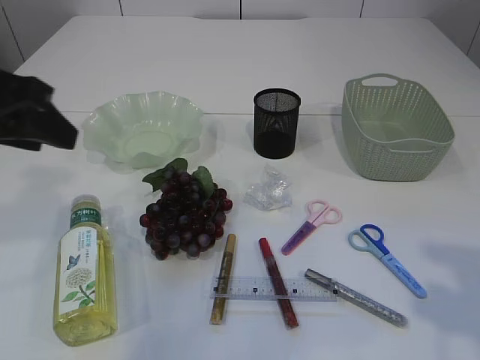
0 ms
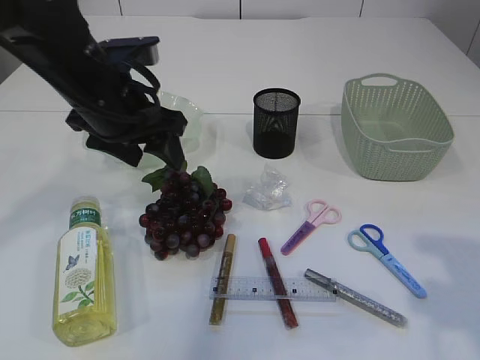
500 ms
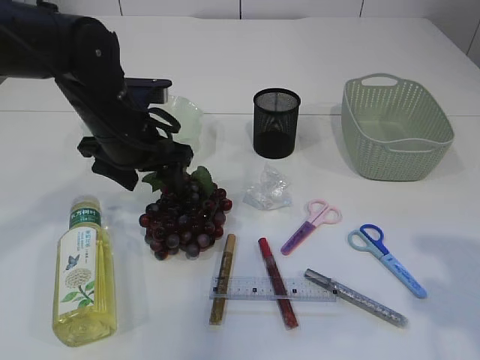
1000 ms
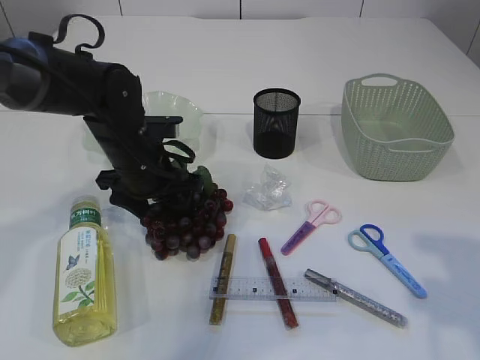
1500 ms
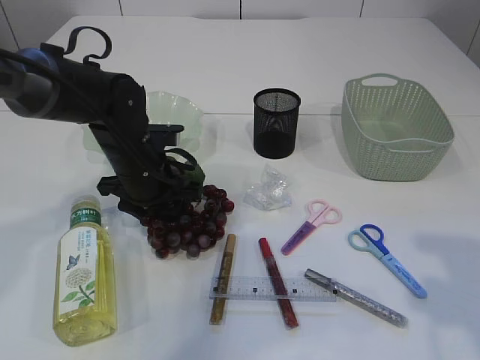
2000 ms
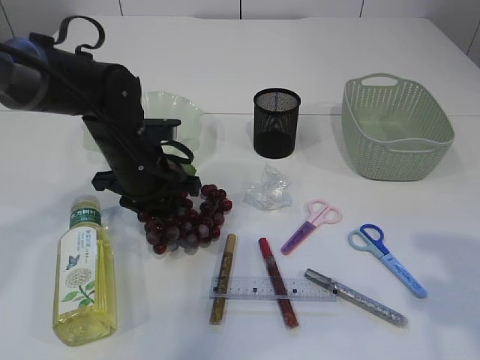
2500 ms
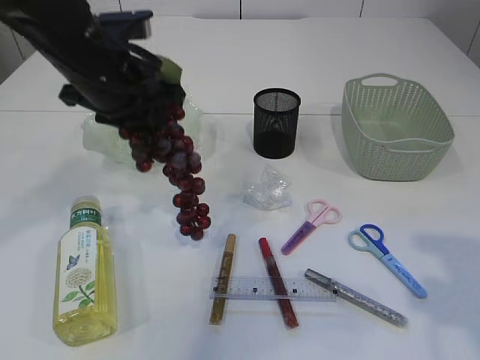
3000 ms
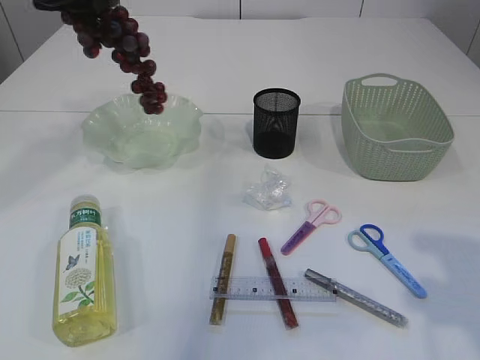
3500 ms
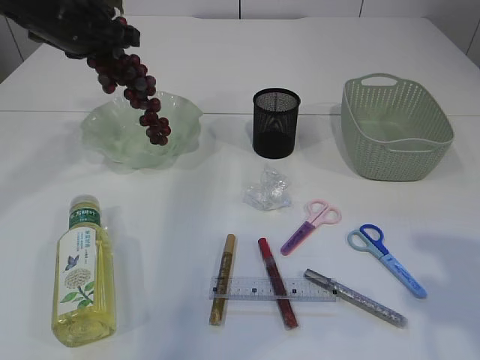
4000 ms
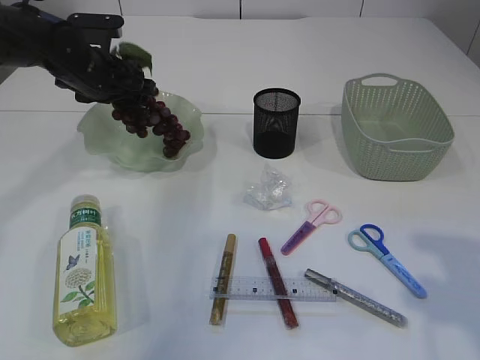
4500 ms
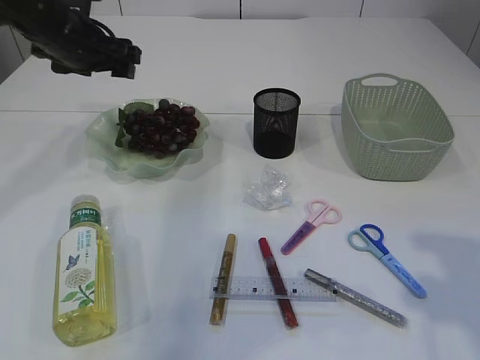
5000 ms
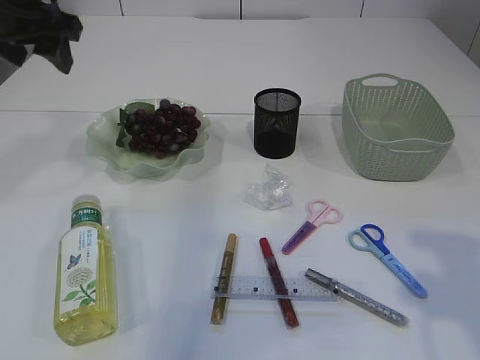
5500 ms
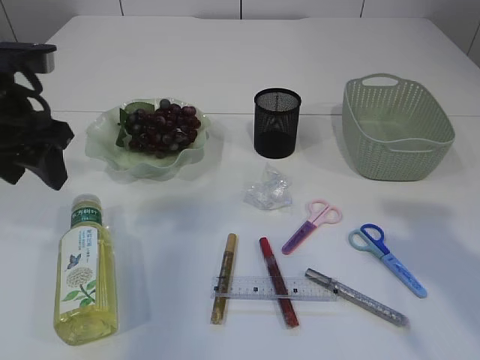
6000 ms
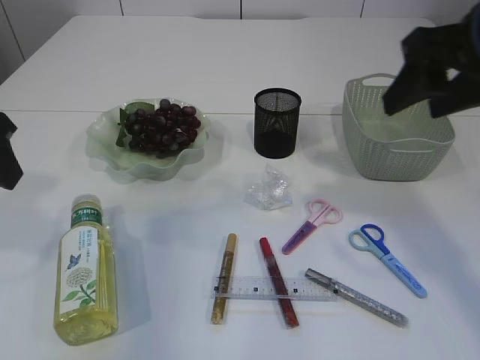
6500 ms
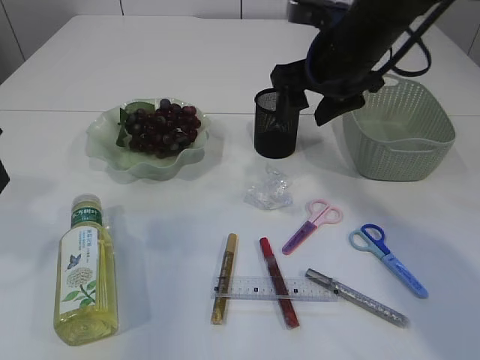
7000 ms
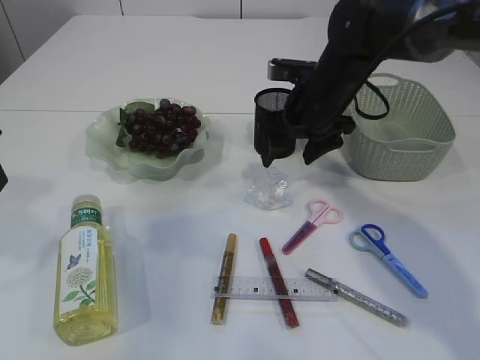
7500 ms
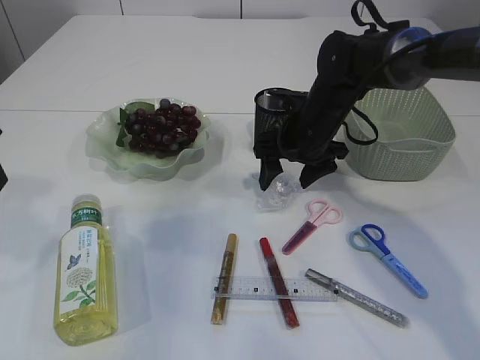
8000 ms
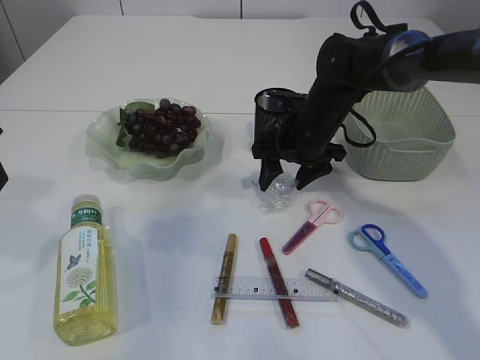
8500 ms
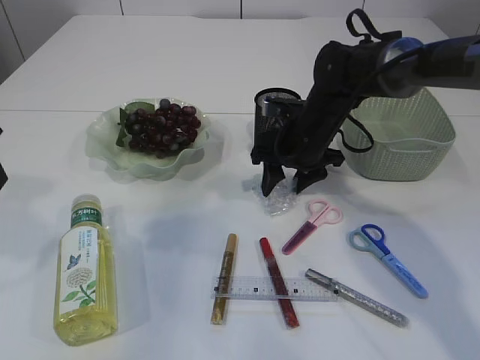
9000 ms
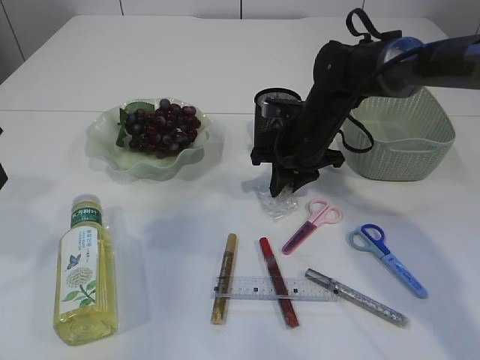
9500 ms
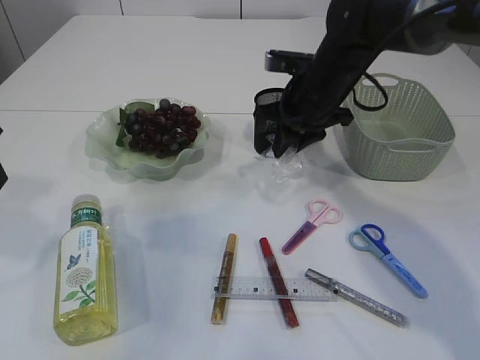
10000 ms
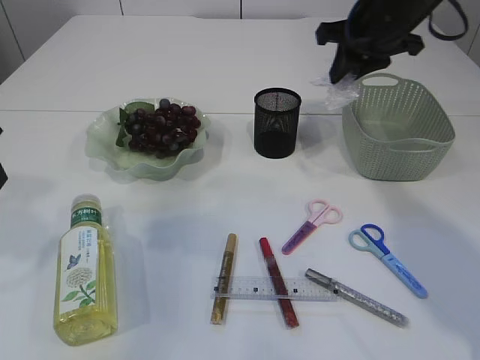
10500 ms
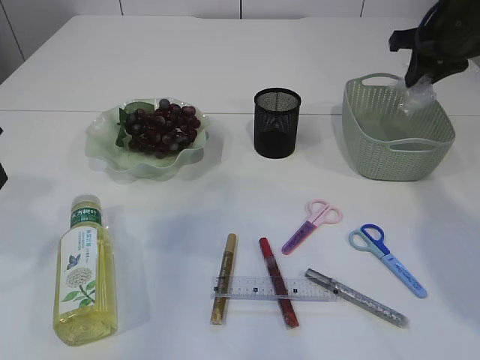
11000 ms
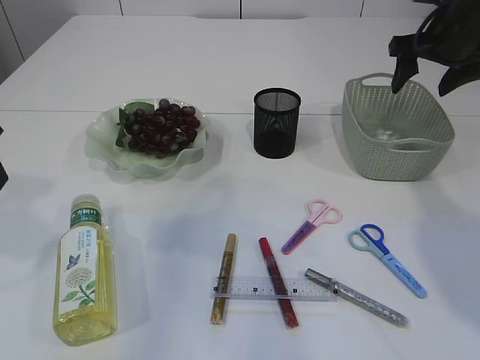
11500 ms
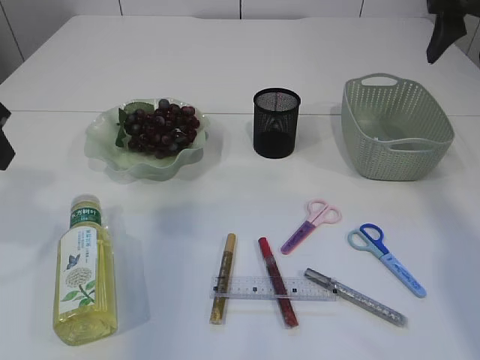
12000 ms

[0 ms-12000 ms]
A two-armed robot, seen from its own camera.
Step, 0 ms to 3000 ms: Pick up the grapes.
Step, 3500 ms to 4500 ms: Place the grapes in the plate.
Step, 5000 ms to 9500 ms: Pick up the plastic.
Step, 10000 ms to 11500 ms: Place the plastic in the basket.
0 ms to 2000 ms: The left gripper goes approximately 25 cm downward, forward and to the right, and opens and closes again.
2000 ms to 4000 ms: The left gripper moves upward, forward and to the left, about 20 cm, and closes its fingers.
4000 ms to 6000 ms: The left gripper goes about 15 cm backward, and opens its fingers. The right gripper ends up about 5 cm from where it was.
6000 ms to 8000 ms: The left gripper heads backward, covering some 5 cm. Meanwhile the right gripper moves forward, downward and to the left, about 35 cm.
8000 ms to 10000 ms: The right gripper heads upward, covering some 5 cm, and closes.
10000 ms to 12000 ms: The right gripper shifts roughly 20 cm to the right and upward, and opens its fingers.

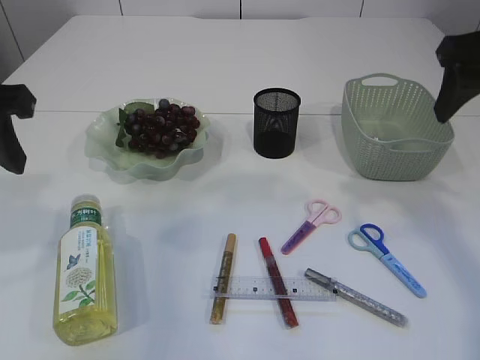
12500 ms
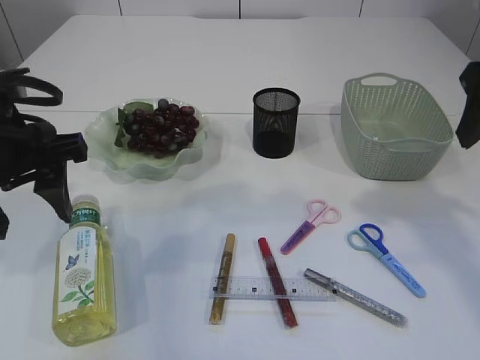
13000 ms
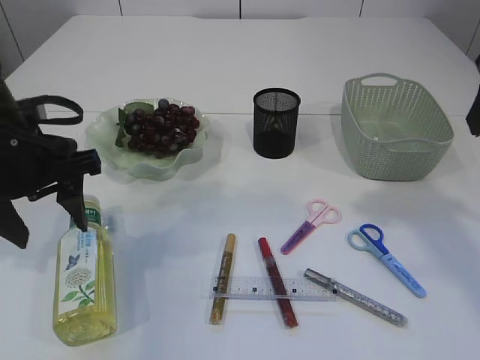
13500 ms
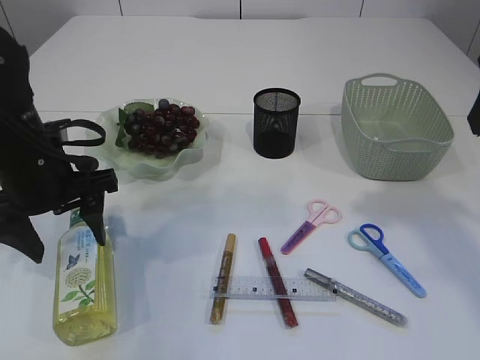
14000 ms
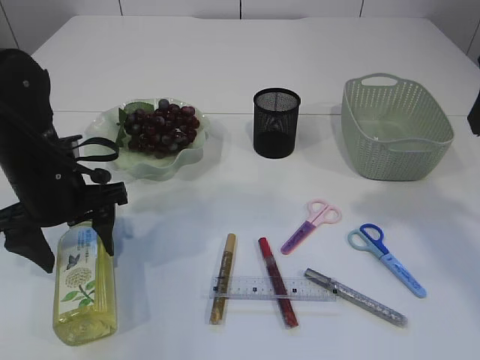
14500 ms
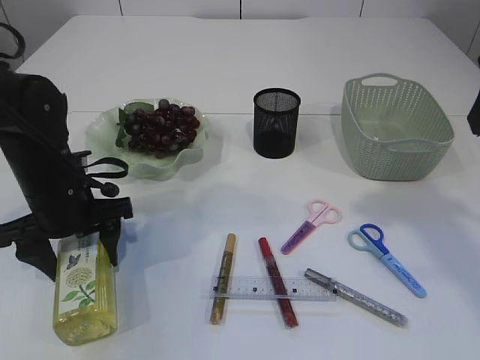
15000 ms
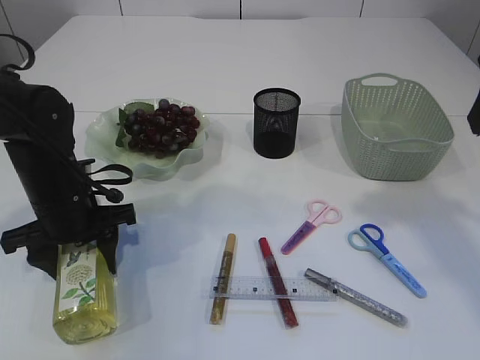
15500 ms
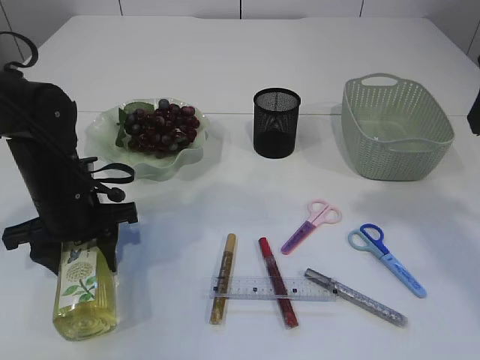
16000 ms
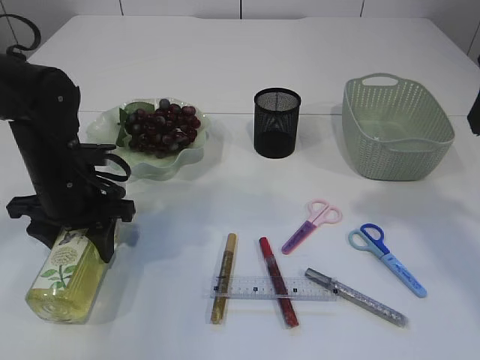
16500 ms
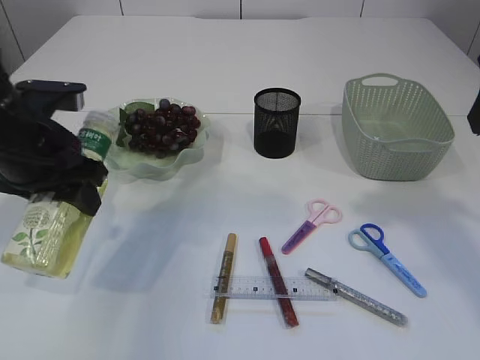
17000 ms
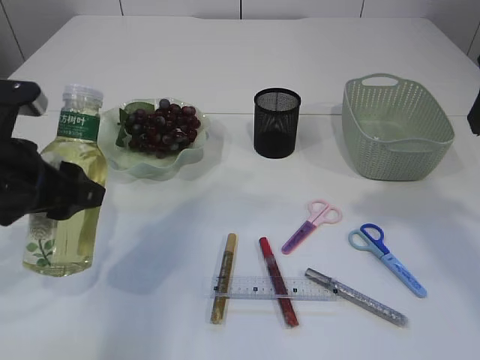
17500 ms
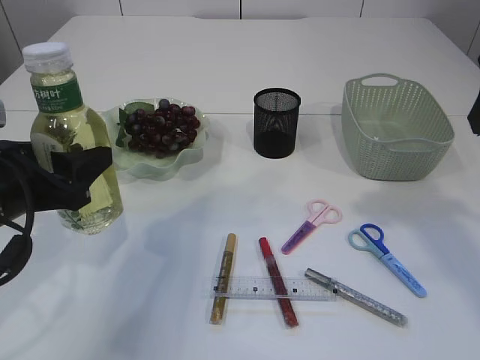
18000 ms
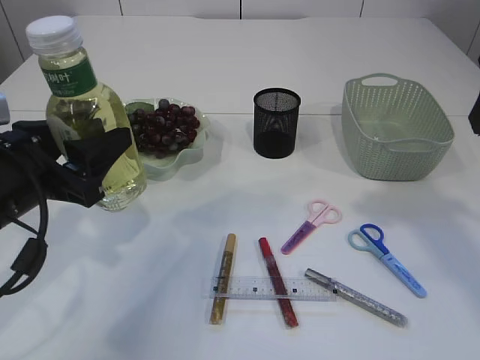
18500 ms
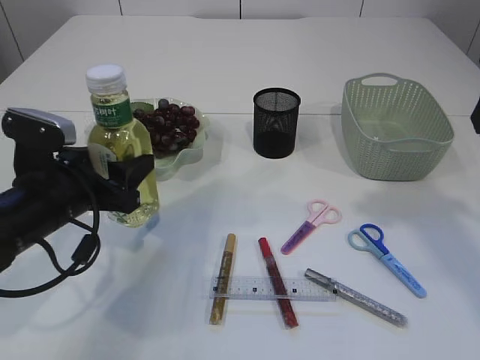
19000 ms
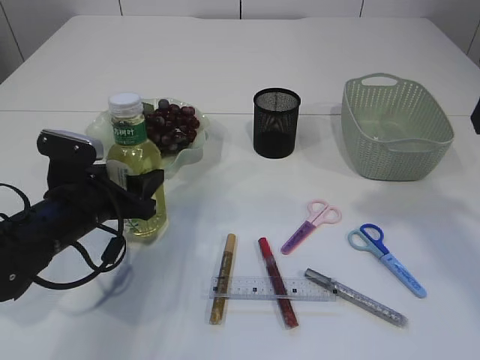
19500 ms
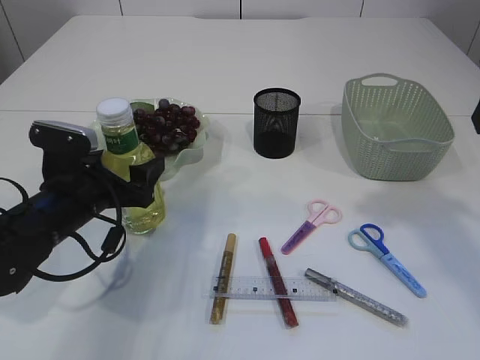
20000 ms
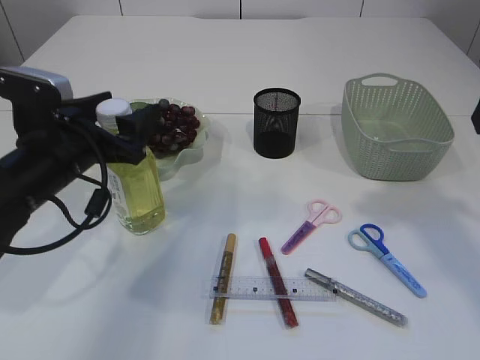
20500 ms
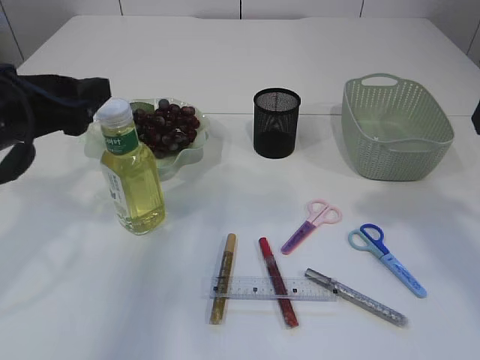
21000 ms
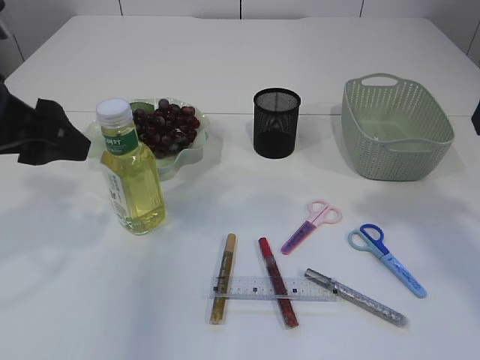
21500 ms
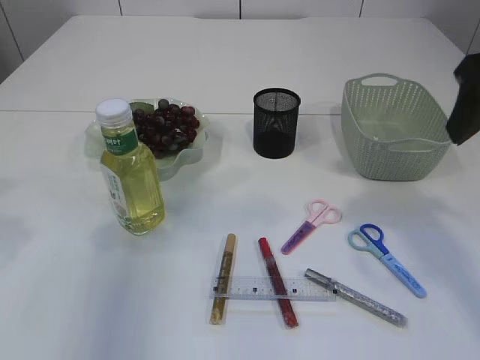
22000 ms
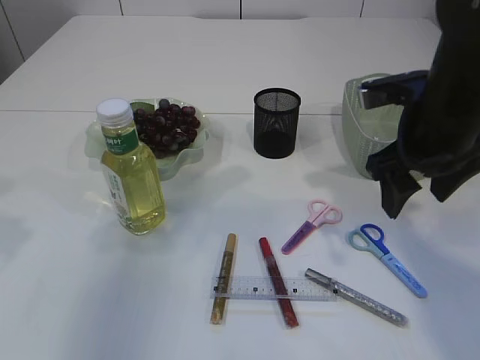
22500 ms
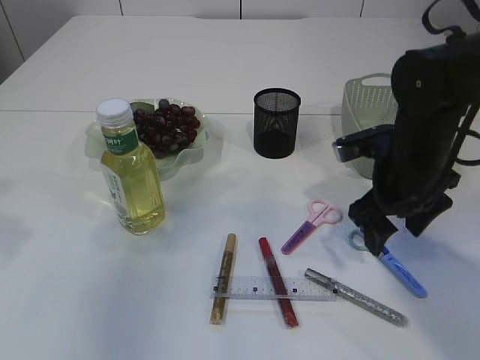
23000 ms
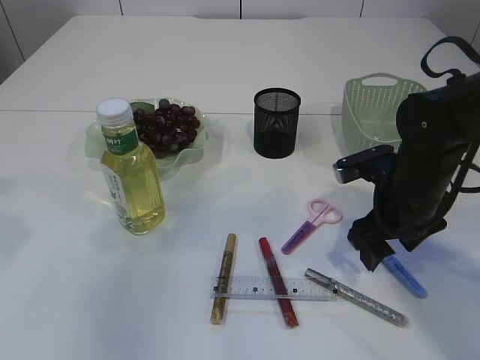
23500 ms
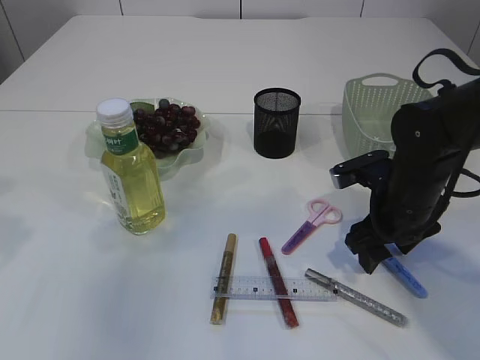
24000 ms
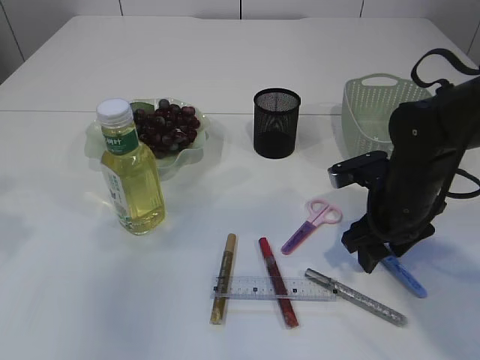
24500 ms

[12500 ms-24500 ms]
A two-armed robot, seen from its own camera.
Step, 12500 ms to 16500 ms: Pick up the bottle with the left arm.
Step, 17000 ms to 20500 ms: Place the bottle.
12500 ms to 14500 ms: The right gripper goes roughly 5 cm backward. Meanwhile the left gripper travels downward and forward by roughly 15 cm, and opens its fingers.
14500 ms to 16500 ms: The left gripper closes.
16500 ms to 18500 ms: The left gripper travels backward and upward by approximately 10 cm.
18500 ms to 20500 ms: The left gripper is displaced forward by approximately 5 cm, moves approximately 10 cm downward and comes back, and opens.
20500 ms to 22500 ms: The right gripper goes some 15 cm downward, to the left and forward. The left gripper travels upward, to the left and backward by about 15 cm.
22500 ms to 24500 ms: The right gripper moves downward, roughly 10 cm.

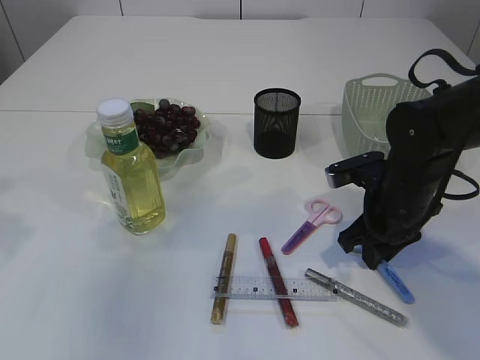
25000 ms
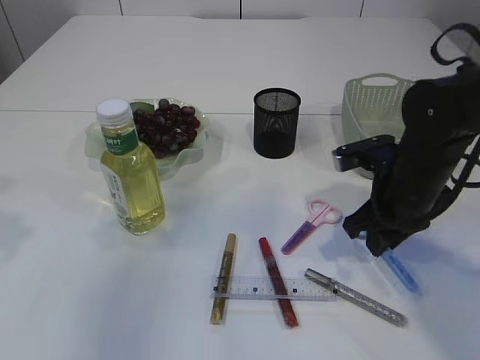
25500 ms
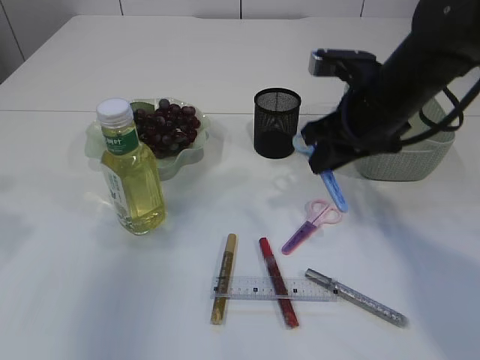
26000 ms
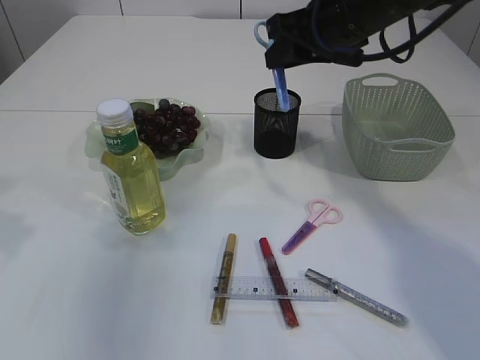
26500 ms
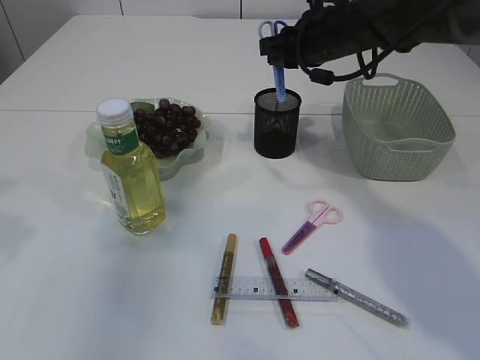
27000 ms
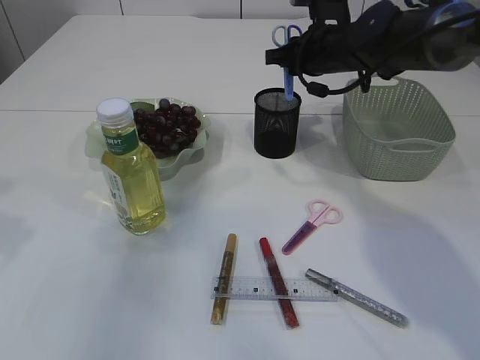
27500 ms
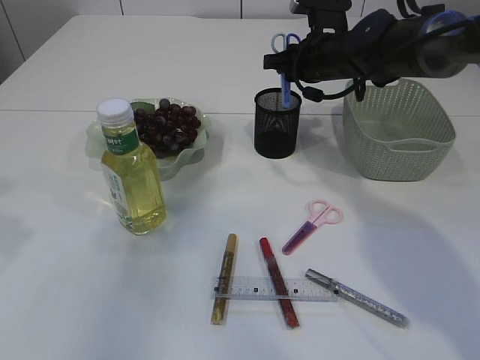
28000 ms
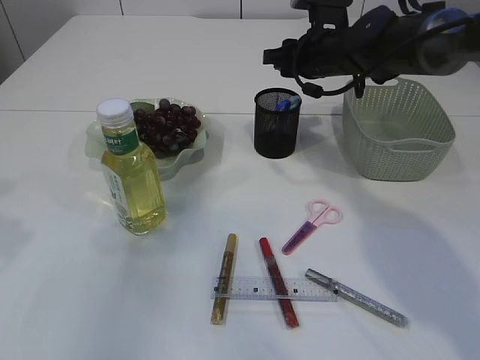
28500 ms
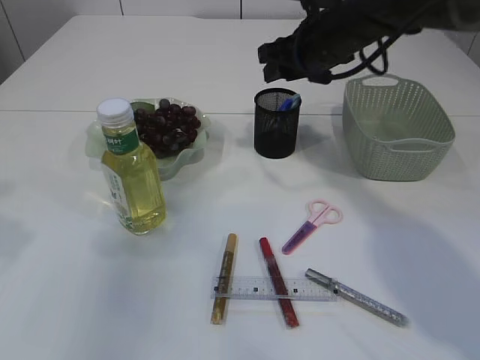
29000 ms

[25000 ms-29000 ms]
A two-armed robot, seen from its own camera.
25000 ms to 27000 ms: The right gripper shifts approximately 20 cm forward, upward and to the left.
27000 ms to 29000 ms: The grippers make only small movements.
